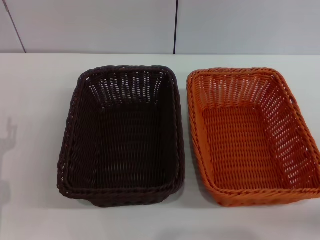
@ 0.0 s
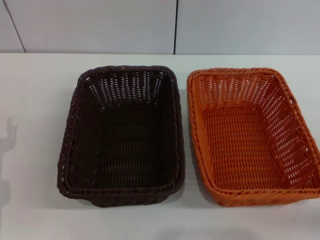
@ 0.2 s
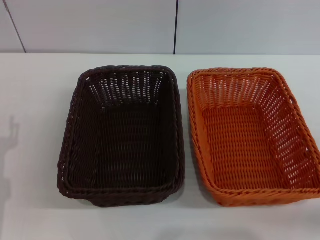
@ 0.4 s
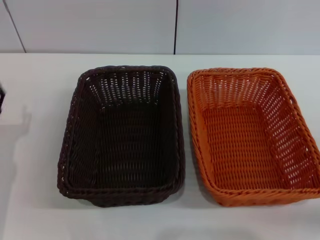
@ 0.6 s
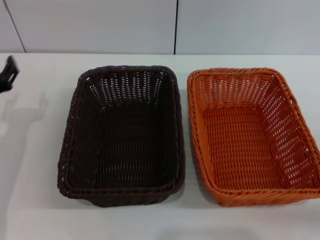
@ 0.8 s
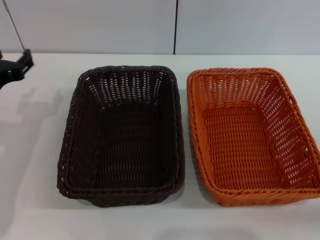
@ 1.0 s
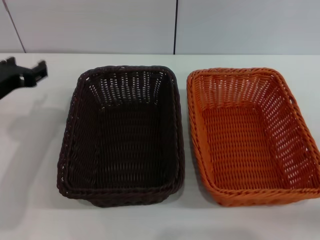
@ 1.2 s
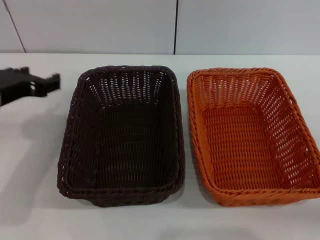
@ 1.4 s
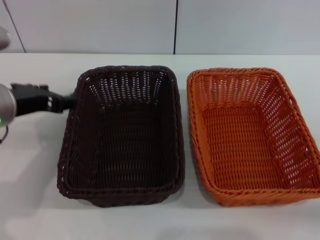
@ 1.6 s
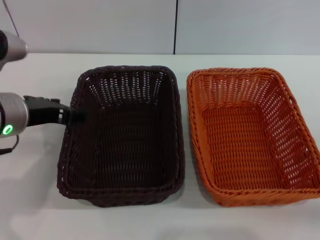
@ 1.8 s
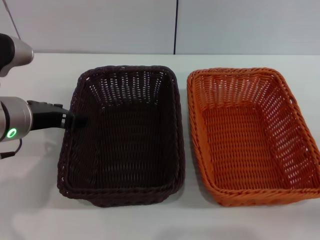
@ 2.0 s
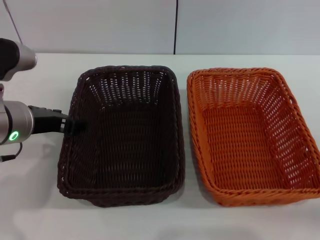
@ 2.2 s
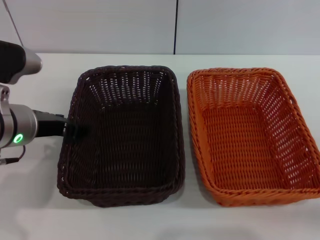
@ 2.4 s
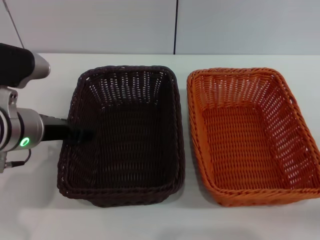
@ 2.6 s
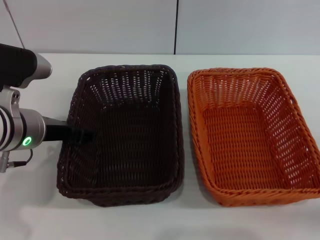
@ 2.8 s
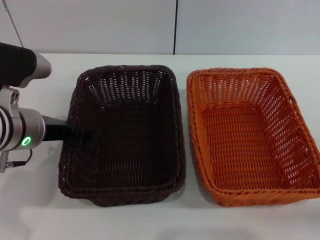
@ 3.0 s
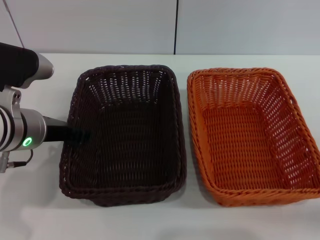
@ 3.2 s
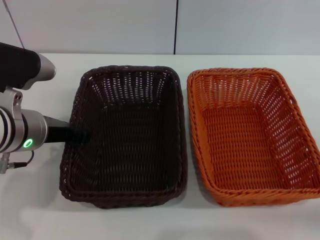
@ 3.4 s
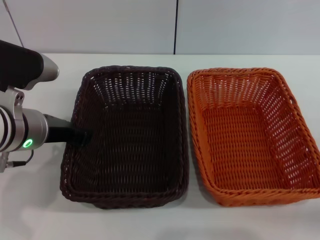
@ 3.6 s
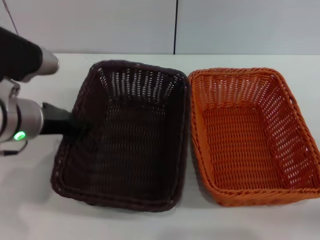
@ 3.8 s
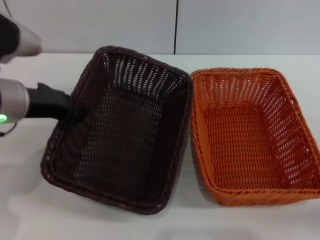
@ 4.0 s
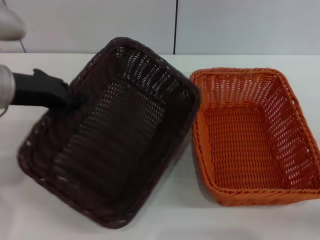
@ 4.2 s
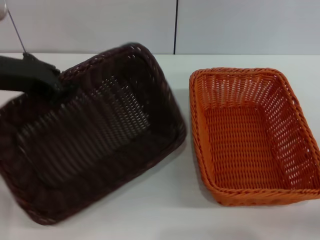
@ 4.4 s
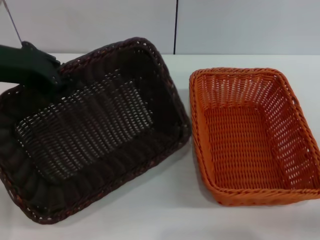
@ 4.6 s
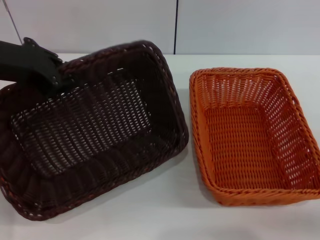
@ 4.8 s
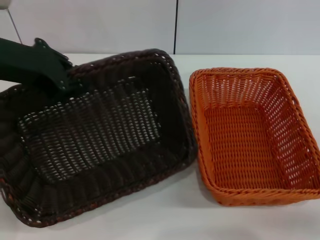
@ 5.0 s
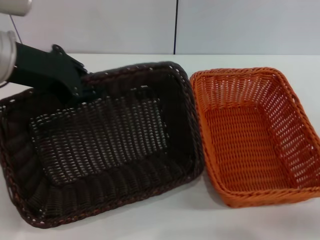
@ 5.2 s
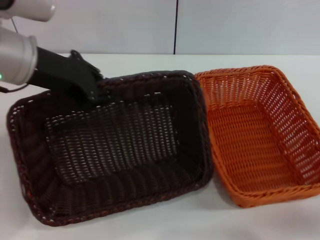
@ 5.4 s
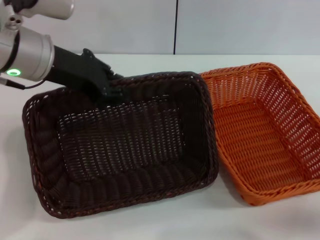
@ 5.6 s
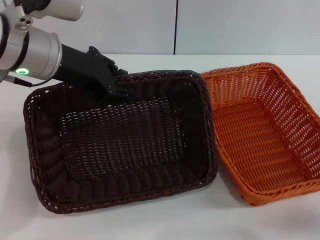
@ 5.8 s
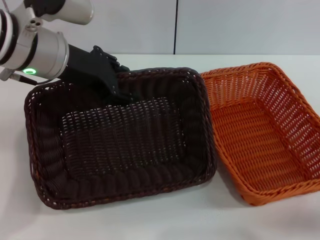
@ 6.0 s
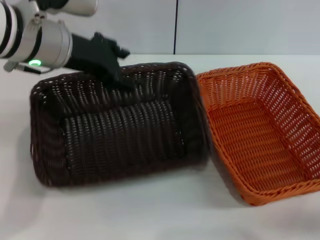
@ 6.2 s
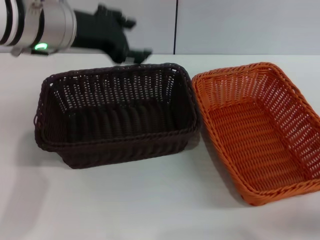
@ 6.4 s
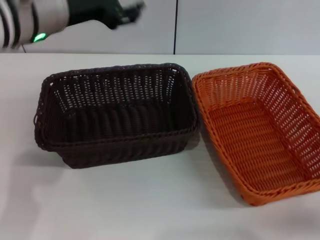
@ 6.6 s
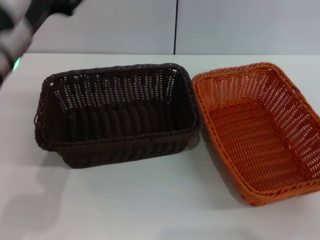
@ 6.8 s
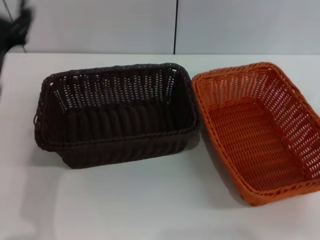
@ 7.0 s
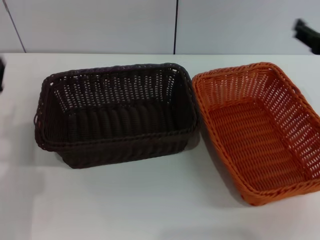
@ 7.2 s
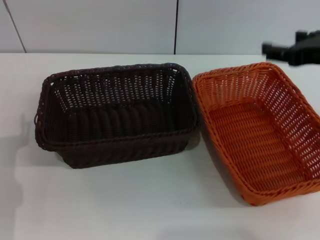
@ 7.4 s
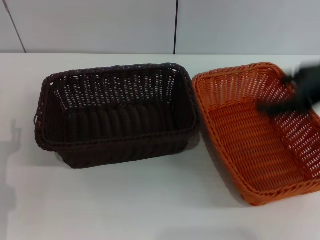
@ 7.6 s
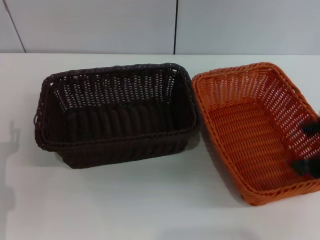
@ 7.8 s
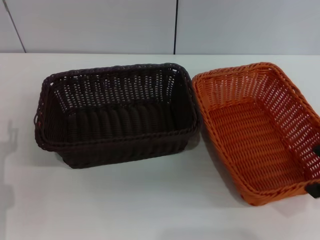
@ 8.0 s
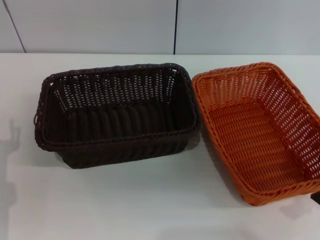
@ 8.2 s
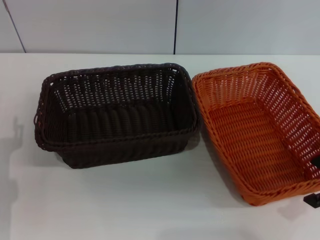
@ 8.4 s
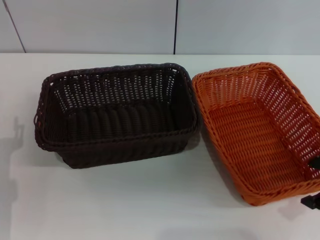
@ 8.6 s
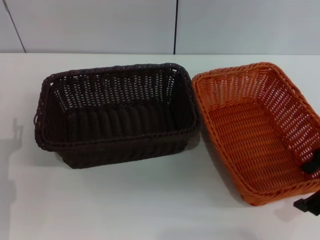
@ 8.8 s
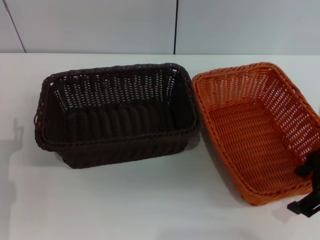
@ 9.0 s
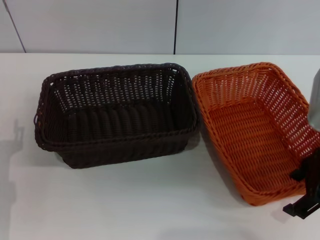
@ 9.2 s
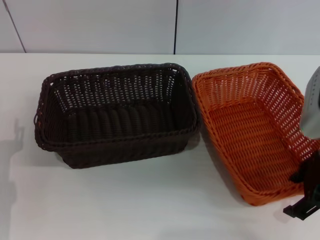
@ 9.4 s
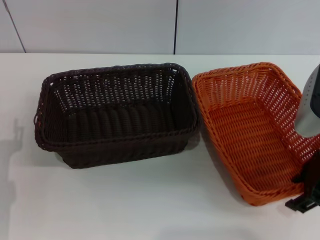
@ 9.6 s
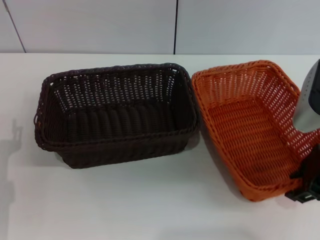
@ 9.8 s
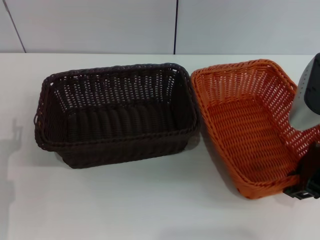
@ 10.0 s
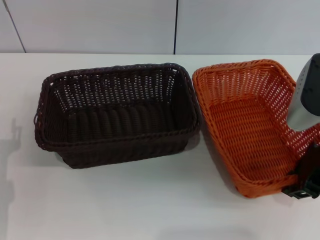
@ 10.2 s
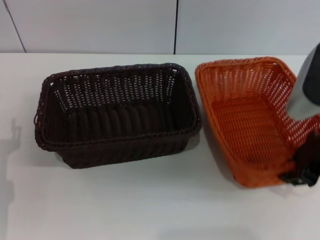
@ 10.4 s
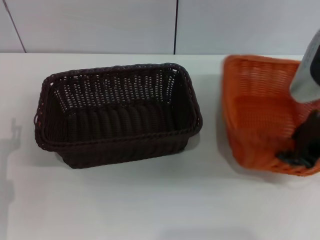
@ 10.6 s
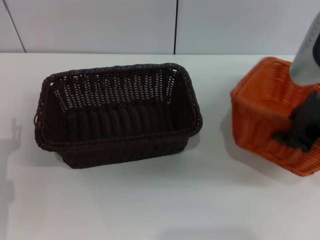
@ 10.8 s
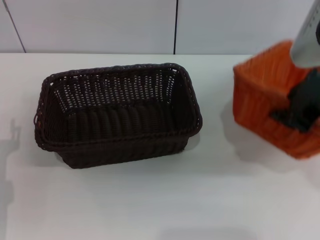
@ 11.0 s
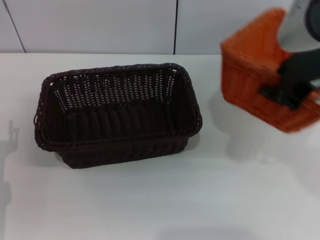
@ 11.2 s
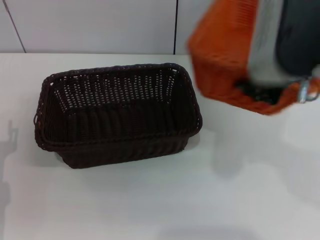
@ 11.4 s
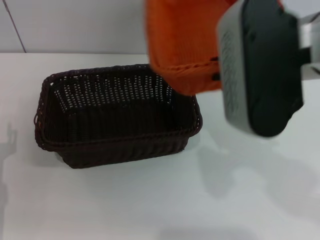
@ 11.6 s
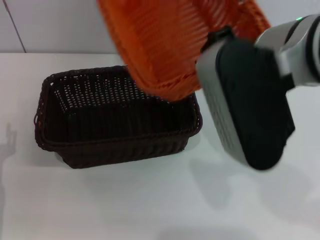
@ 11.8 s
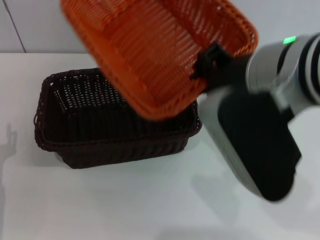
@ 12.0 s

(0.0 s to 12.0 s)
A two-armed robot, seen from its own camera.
Step, 0.0 s - 3.8 s: Pick up the dark basket with the left gripper.
Step, 4.0 s - 6.2 s: Place the dark basket in the center of view with the left gripper.
Step, 6.4 s - 10.4 s: Pick up the light basket with the right gripper.
0.0 s - 1.6 s: The left gripper goes some 20 cm upward and to the right.
1.6 s - 3.0 s: The grippers move only a little.
3.0 s - 4.4 s: The left gripper is displaced upward by about 10 cm, and closes its fingers.
4.4 s - 6.0 s: The left gripper heads to the right, covering roughly 5 cm, and opens its fingers.
6.0 s - 7.6 s: The left gripper moves downward, backward and to the left, about 25 cm, and opens up; the right gripper travels upward and to the left by approximately 25 cm.
7.6 s - 9.0 s: The right gripper shifts about 5 cm downward.
9.0 s - 10.4 s: The right gripper closes up.
10.4 s - 12.0 s: The right gripper travels to the left and upward by about 15 cm.

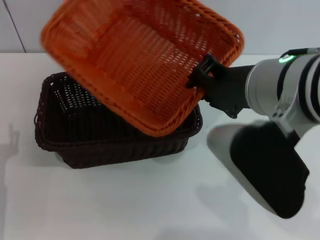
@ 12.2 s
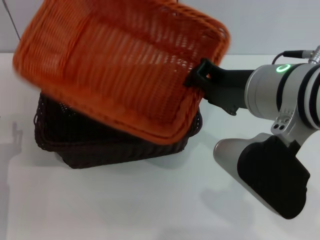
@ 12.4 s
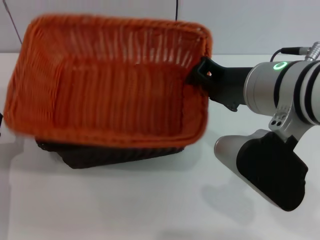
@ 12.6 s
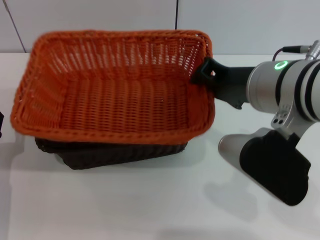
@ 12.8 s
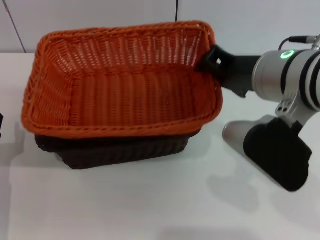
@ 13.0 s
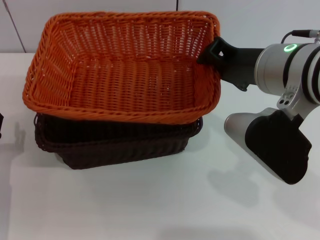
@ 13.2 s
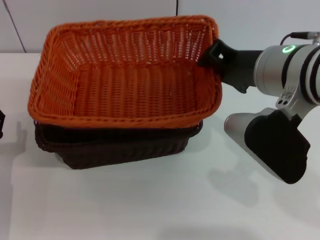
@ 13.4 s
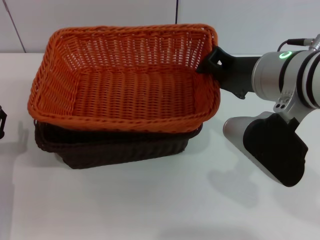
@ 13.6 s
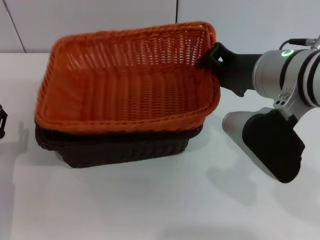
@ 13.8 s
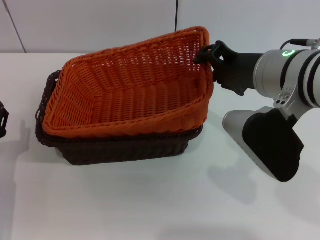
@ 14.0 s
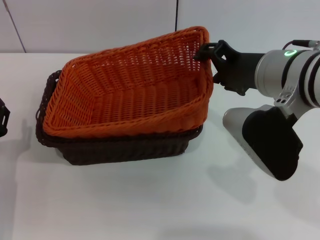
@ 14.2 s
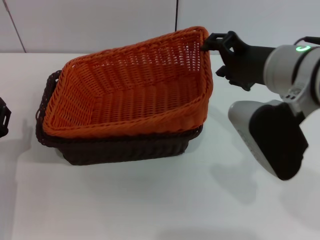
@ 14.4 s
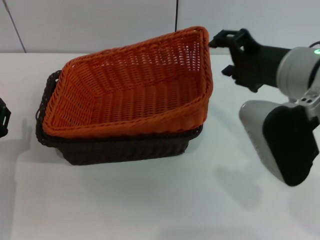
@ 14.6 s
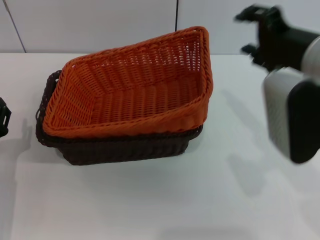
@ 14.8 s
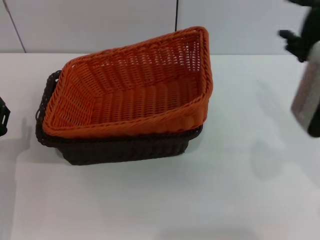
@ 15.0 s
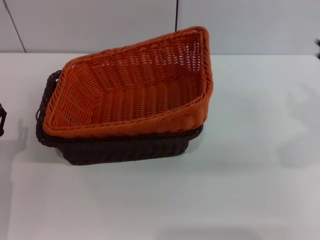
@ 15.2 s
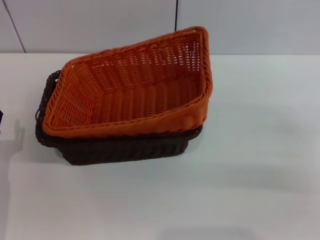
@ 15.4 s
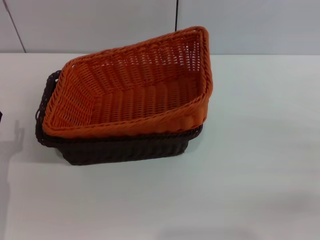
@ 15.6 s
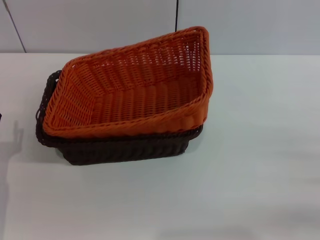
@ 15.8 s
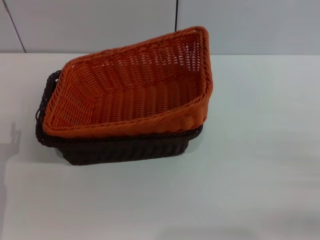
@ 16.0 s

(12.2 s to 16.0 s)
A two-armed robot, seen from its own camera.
Step, 12.2 s - 14.0 s: Place the light basket on the dark basket with the right gripper.
12.2 s - 13.4 s: The right gripper shifts by about 5 cm.
13.4 s - 14.8 s: The right gripper opens.
14.8 s - 16.0 s: The right gripper goes about 25 cm downward, to the right and backward.
